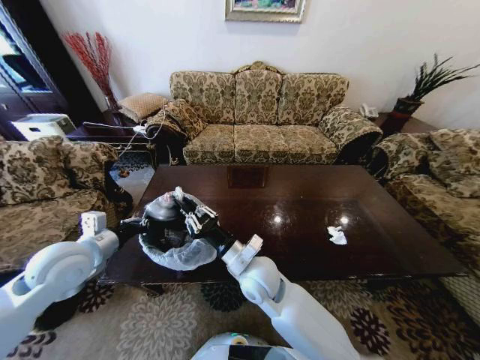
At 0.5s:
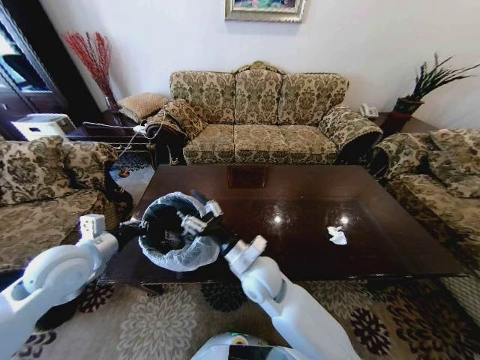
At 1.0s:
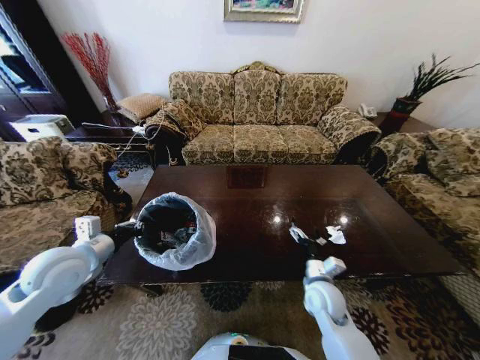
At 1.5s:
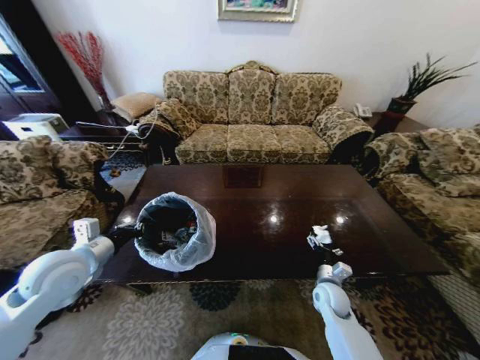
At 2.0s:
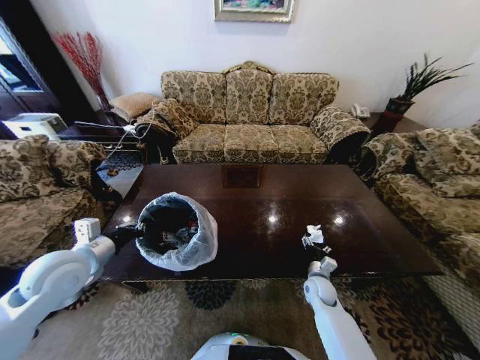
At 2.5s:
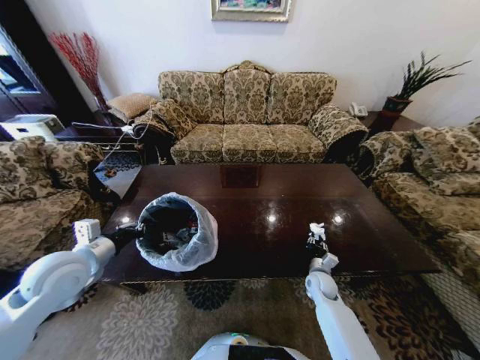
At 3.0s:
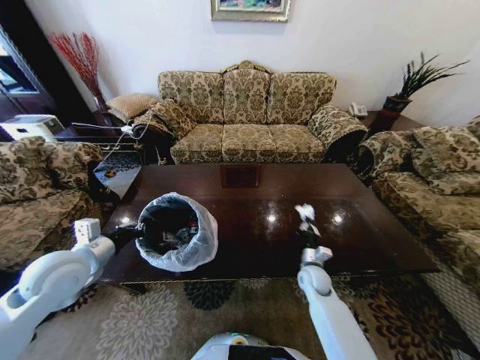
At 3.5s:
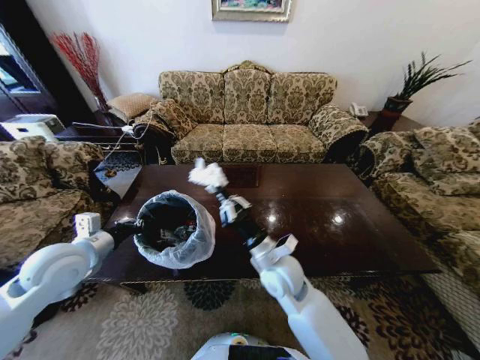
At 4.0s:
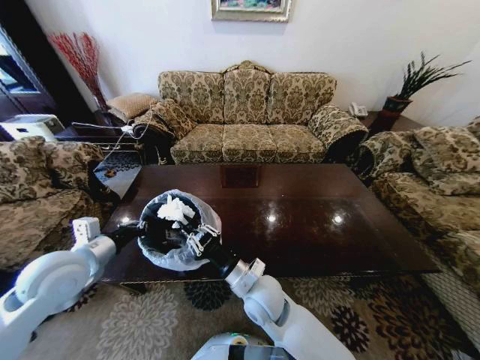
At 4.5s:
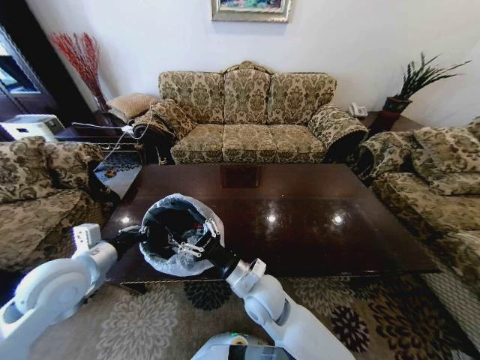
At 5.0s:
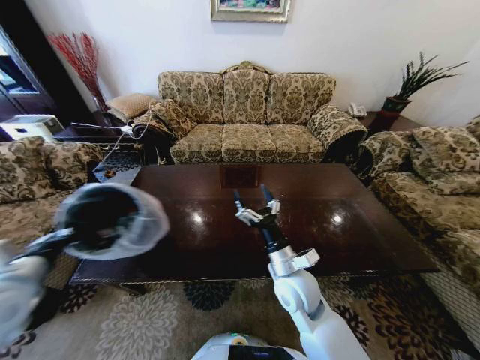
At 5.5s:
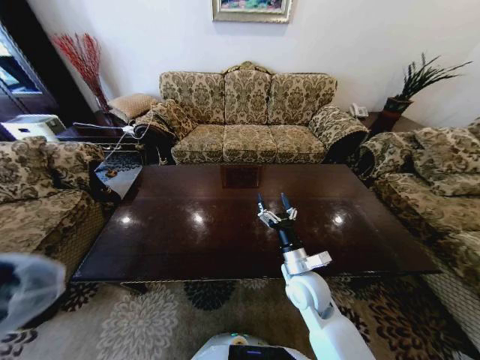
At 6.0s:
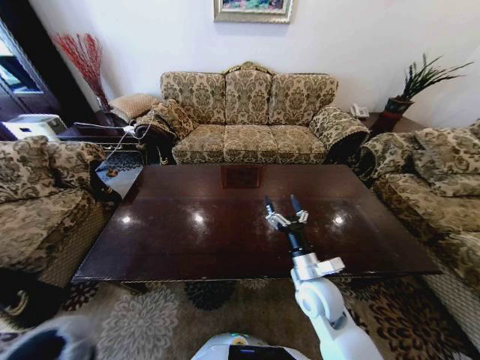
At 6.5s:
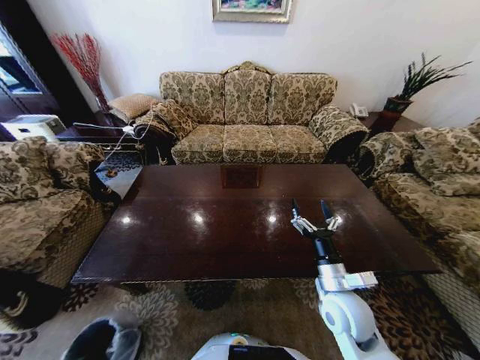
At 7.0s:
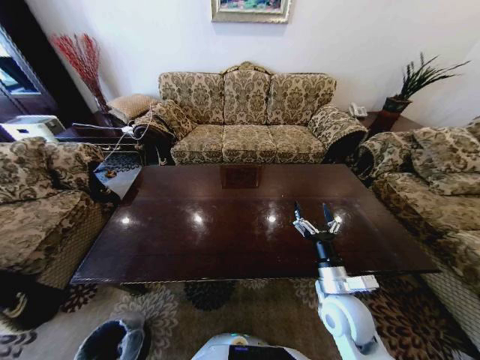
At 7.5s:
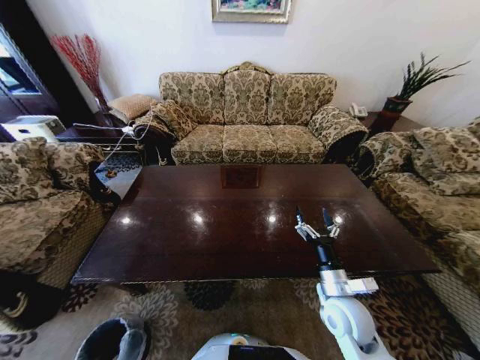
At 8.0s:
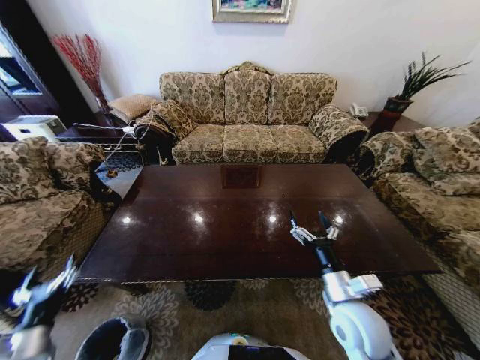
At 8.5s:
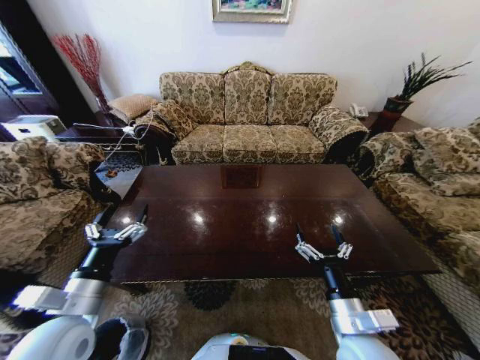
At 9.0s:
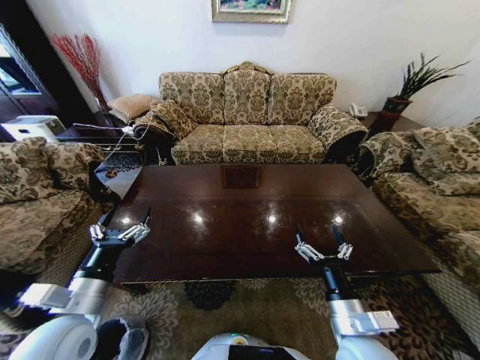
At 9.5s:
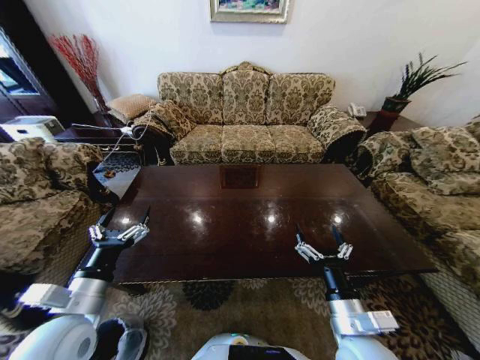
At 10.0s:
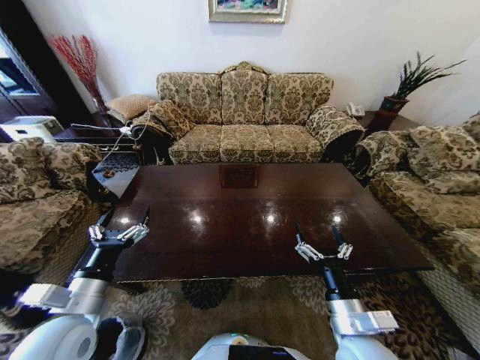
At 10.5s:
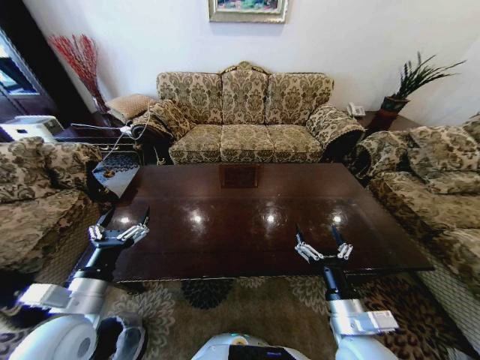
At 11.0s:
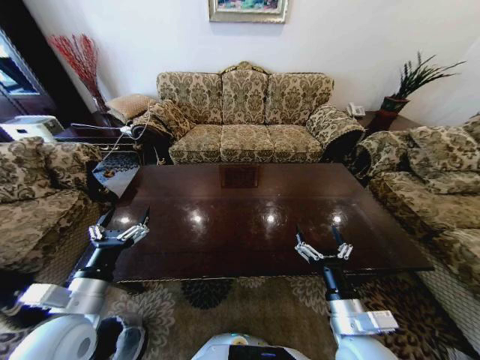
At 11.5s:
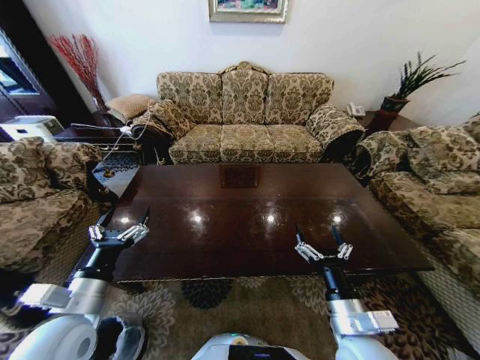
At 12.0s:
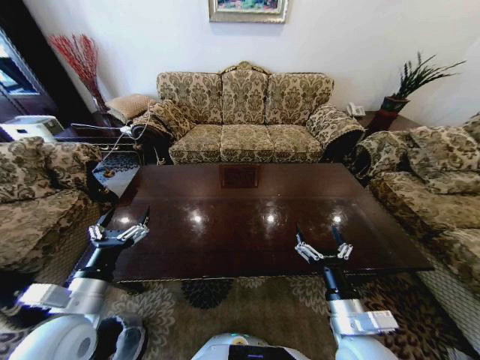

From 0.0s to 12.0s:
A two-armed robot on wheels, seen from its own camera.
Task of the whole recording: Move to the front of the table and place the trash on the table into the trash bin.
From 0.0s to 2.0s: The right gripper goes approximately 30 cm to the right and downward, and opens its fingers.
From 2.0s to 4.0s: The right gripper is displaced to the left and upward by roughly 30 cm, and closes its fingers.
From 4.0s to 6.0s: The right gripper heads to the right, covering about 15 cm, and opens its fingers; the left gripper moves downward, backward and to the left, some 50 cm.
From 6.0s to 8.0s: The left gripper heads upward and to the right, covering some 20 cm, and opens up, while the right gripper moves backward and to the right, some 10 cm.
From 8.0s to 10.0s: The left gripper moves to the right, upward and forward, some 20 cm; the right gripper shifts about 5 cm backward.
From 10.0s to 12.0s: The two grippers keep their place.

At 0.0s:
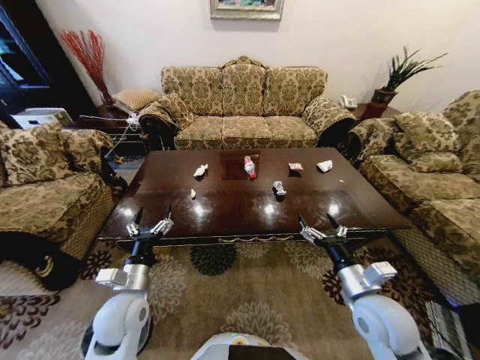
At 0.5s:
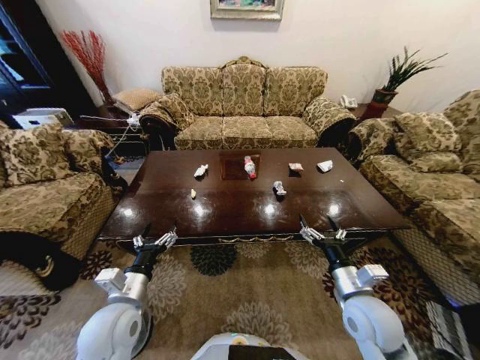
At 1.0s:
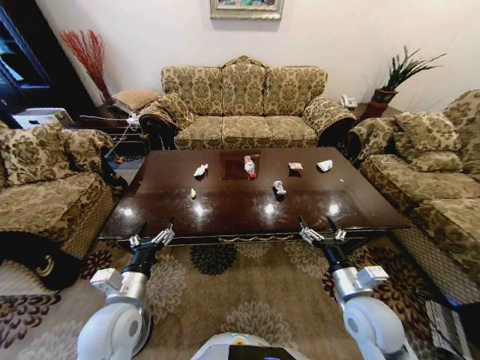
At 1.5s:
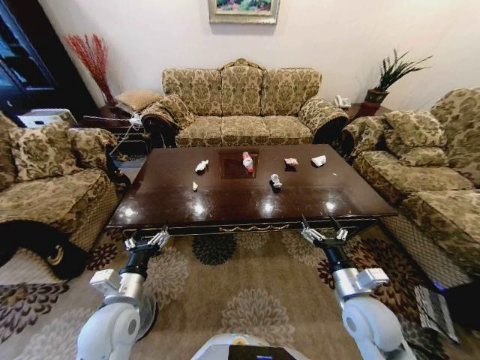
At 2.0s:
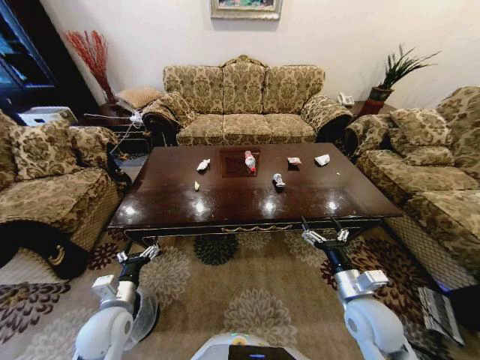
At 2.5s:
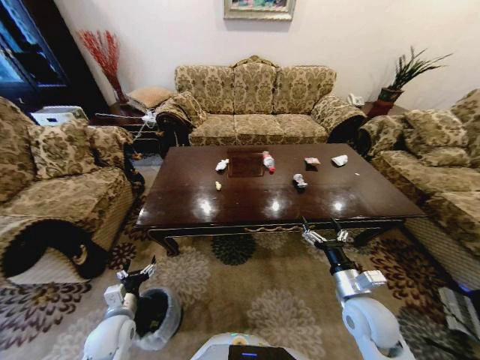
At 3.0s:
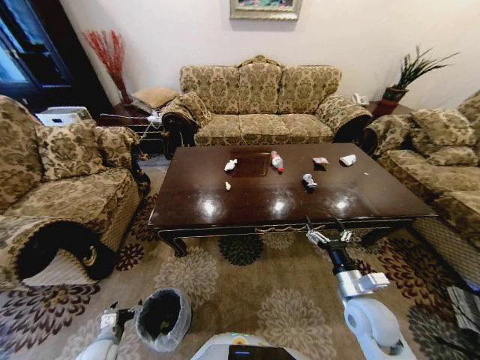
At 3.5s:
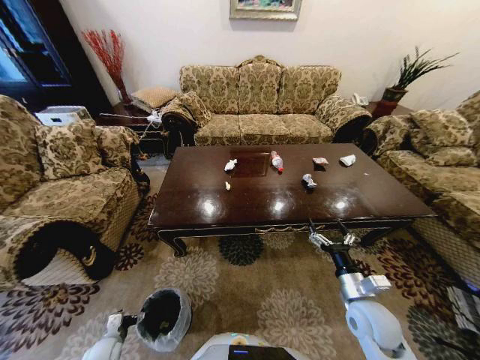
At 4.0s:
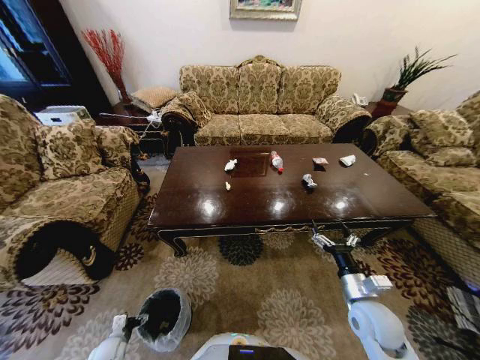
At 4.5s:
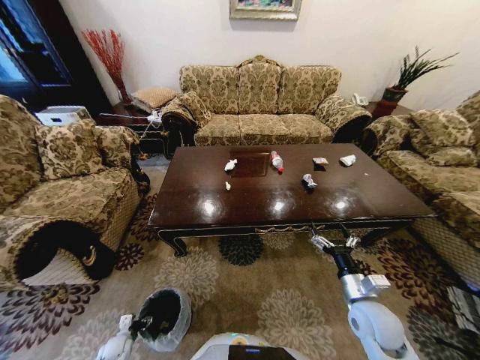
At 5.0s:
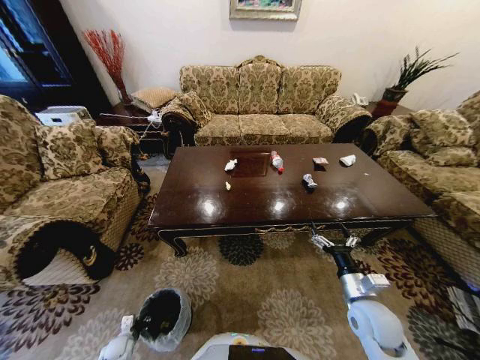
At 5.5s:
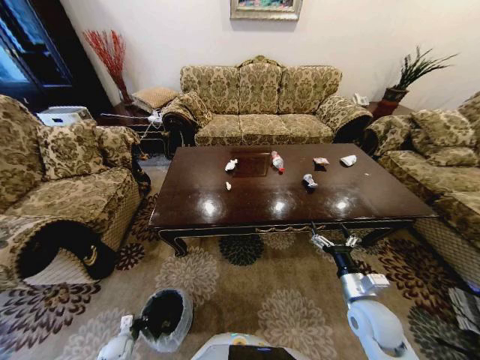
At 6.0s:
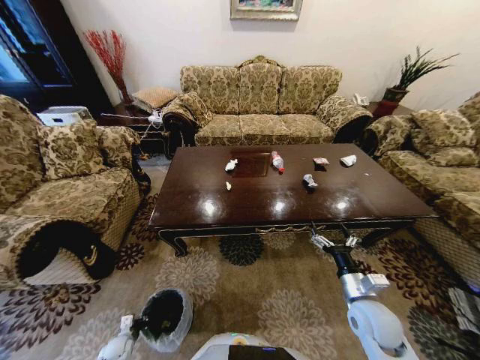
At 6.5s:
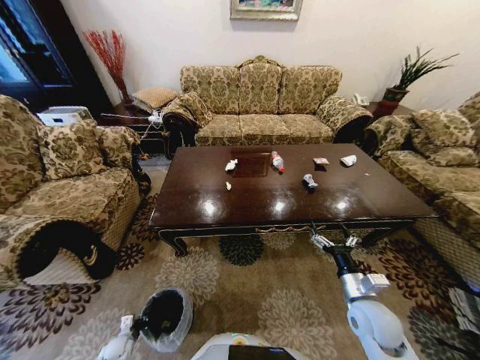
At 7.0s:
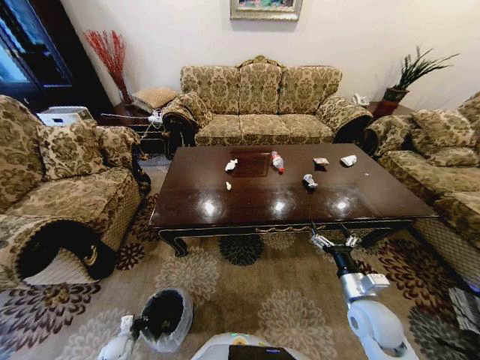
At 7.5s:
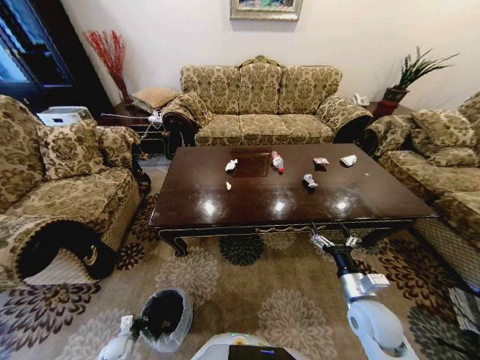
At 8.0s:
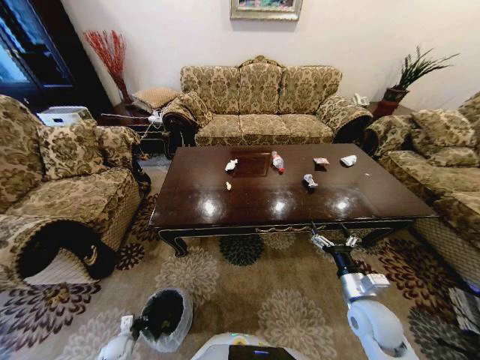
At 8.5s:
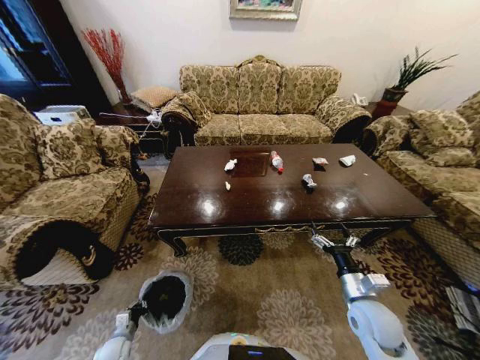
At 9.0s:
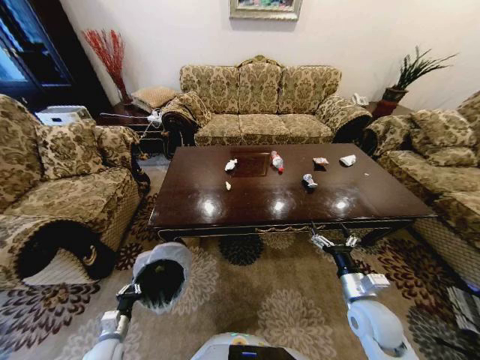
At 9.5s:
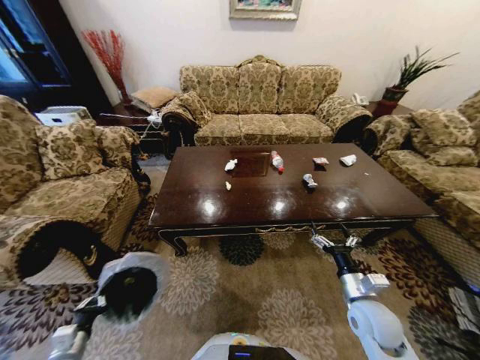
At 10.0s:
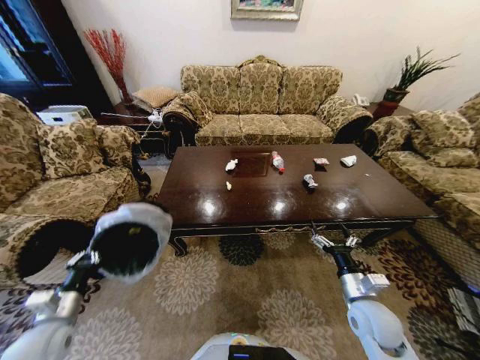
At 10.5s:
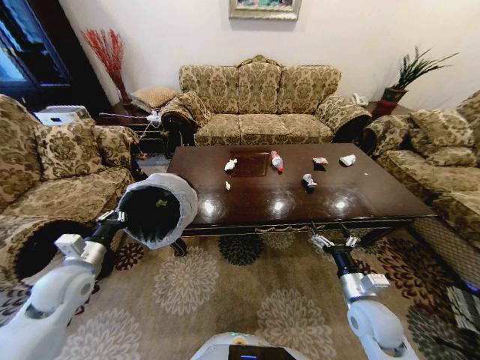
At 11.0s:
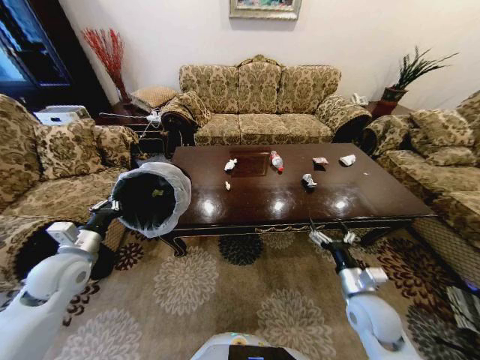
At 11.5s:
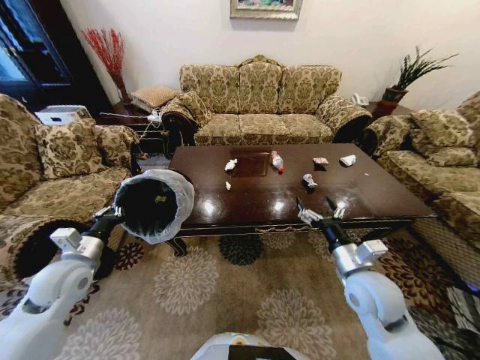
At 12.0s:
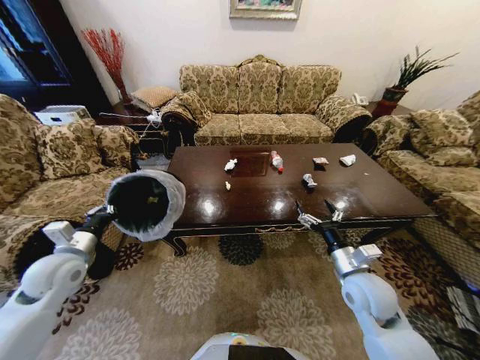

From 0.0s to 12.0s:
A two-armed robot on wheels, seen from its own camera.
Task of the whole recording: Move to the front of the table and place the trash on the table into the trash bin.
From 2.0s to 4.0s: The left gripper heads downward and to the left, covering roughly 30 cm.
From 4.0s to 6.0s: The left gripper closes up.
From 6.0s to 8.0s: Both grippers stay put.
From 8.0s to 10.0s: The left gripper moves upward, some 30 cm.
From 10.0s to 12.0s: The right gripper goes some 5 cm upward. The left gripper goes some 15 cm forward and upward.

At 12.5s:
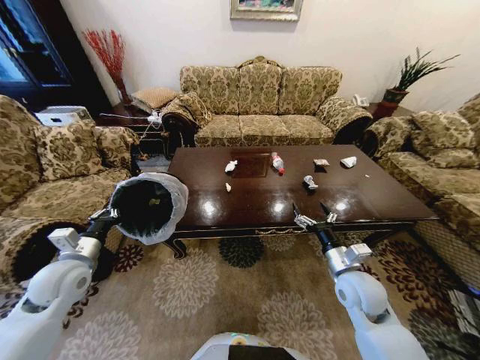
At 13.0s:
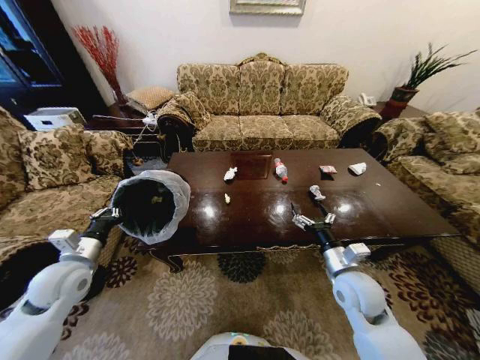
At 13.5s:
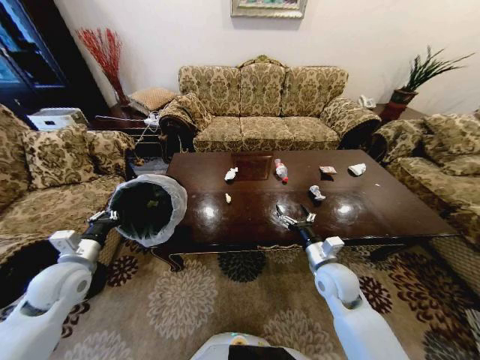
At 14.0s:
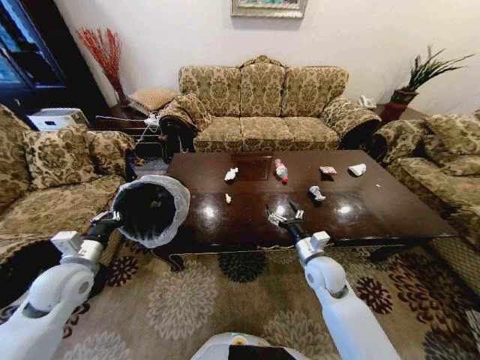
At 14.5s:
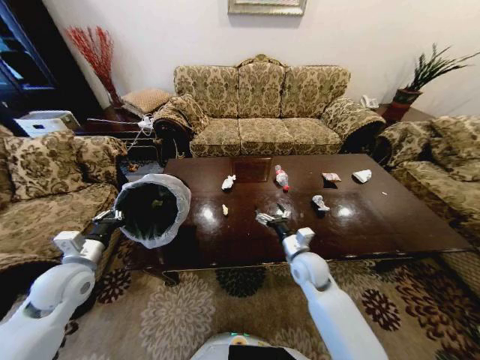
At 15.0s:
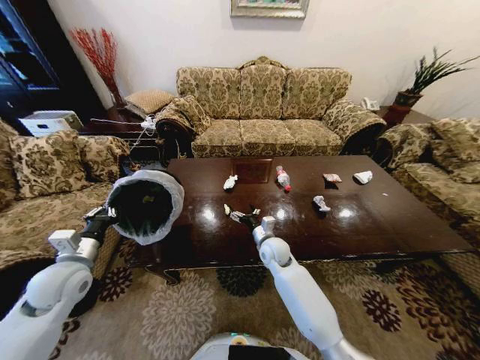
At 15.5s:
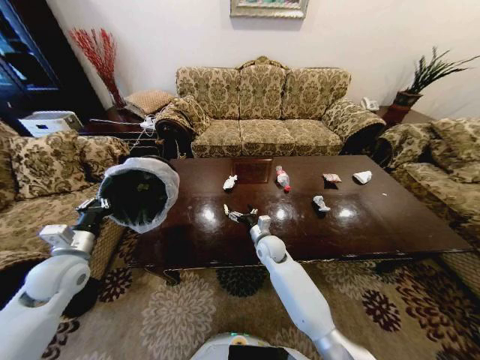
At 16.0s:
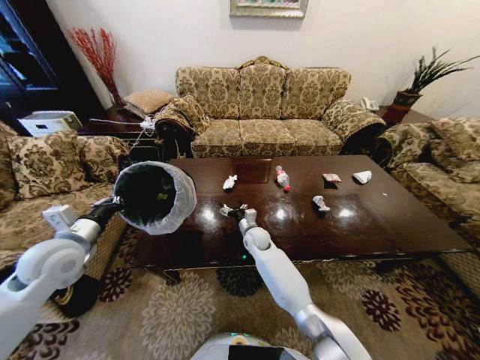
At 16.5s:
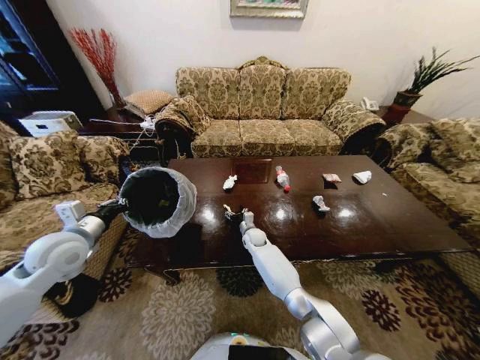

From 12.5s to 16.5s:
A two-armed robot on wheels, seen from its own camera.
Task of the whole recording: Move to the front of the table and place the trash on the table into the trash bin.
From 12.5s to 14.5s: The right gripper moves to the left and forward, roughly 10 cm.
From 14.5s to 16.5s: The right gripper travels forward, to the left and downward by roughly 25 cm. Meanwhile the left gripper shifts about 5 cm upward.
